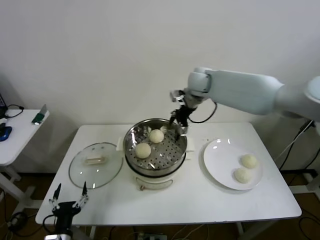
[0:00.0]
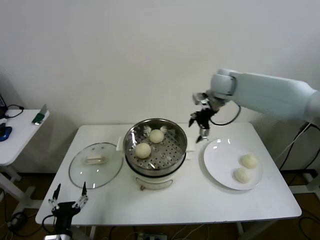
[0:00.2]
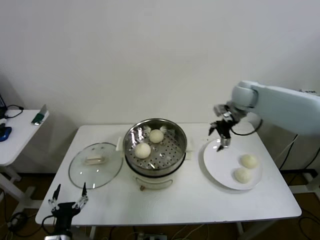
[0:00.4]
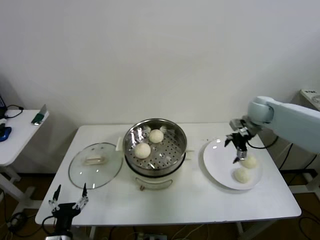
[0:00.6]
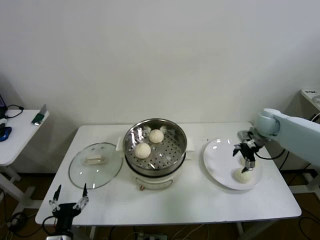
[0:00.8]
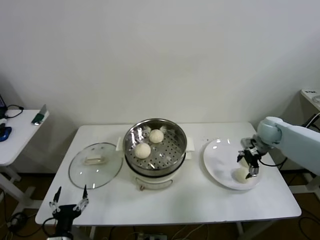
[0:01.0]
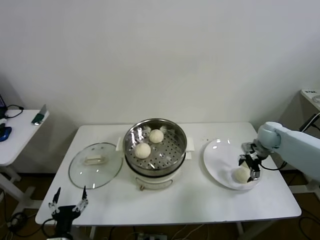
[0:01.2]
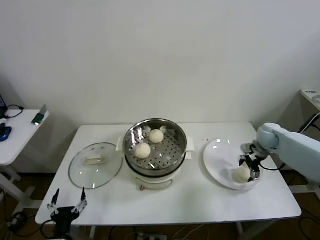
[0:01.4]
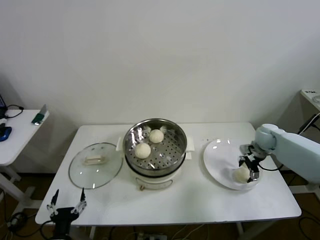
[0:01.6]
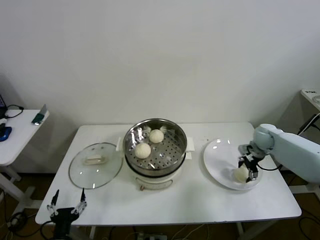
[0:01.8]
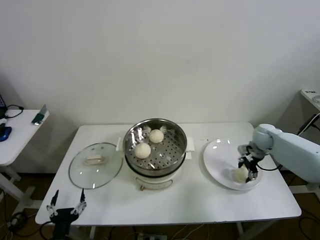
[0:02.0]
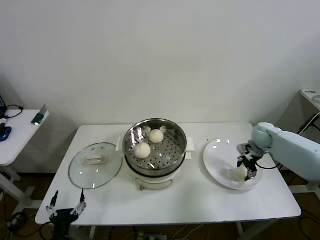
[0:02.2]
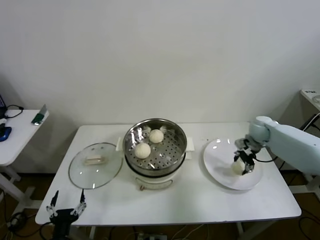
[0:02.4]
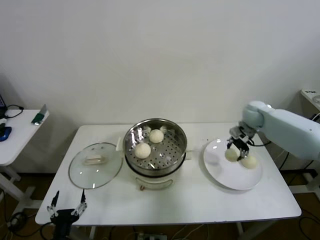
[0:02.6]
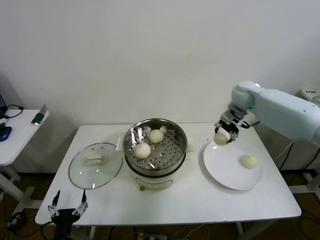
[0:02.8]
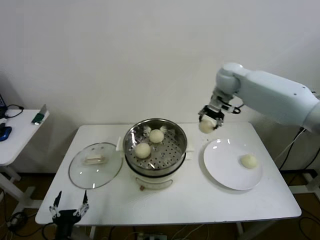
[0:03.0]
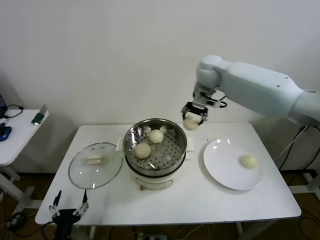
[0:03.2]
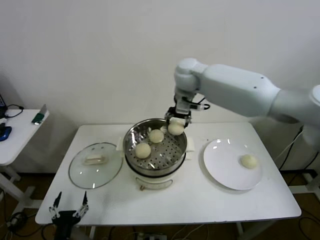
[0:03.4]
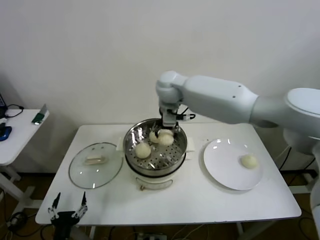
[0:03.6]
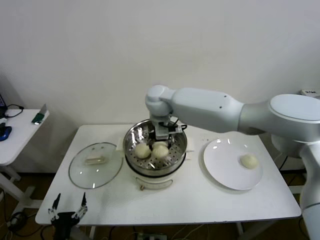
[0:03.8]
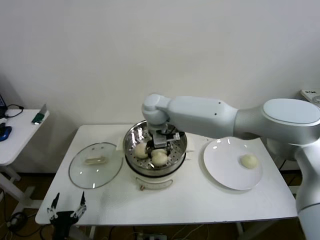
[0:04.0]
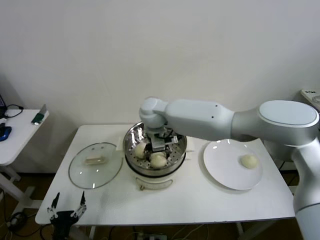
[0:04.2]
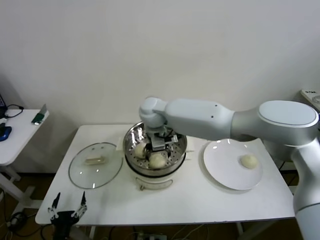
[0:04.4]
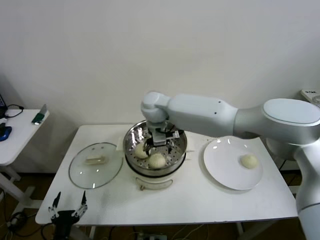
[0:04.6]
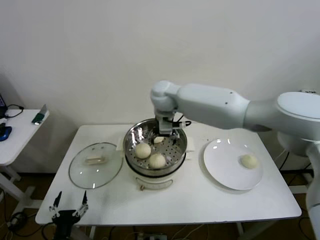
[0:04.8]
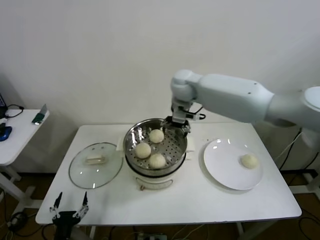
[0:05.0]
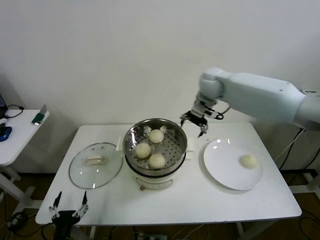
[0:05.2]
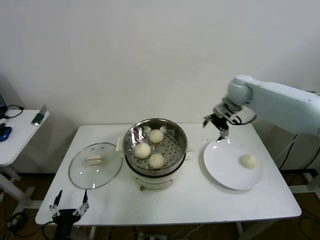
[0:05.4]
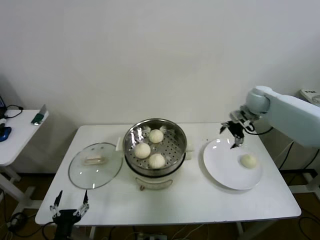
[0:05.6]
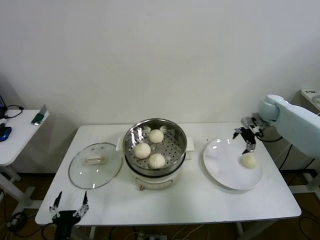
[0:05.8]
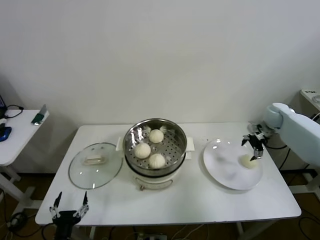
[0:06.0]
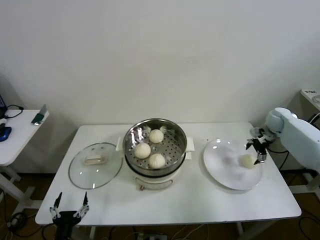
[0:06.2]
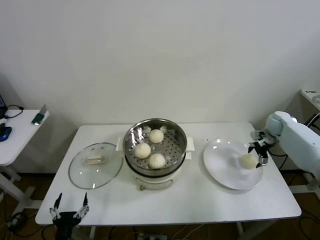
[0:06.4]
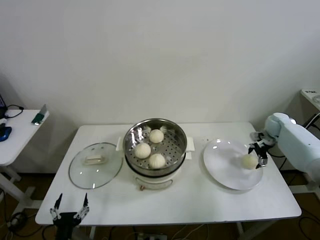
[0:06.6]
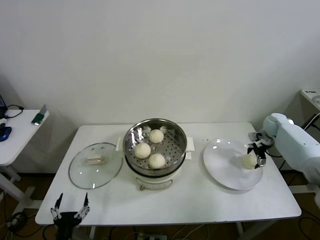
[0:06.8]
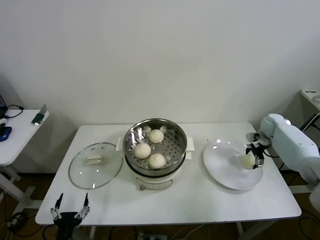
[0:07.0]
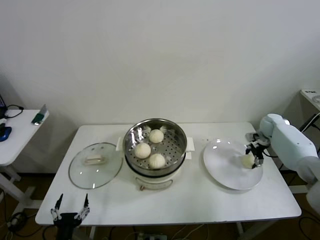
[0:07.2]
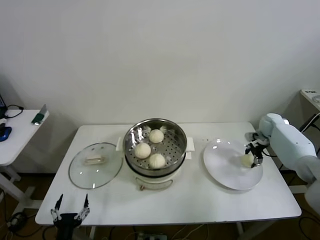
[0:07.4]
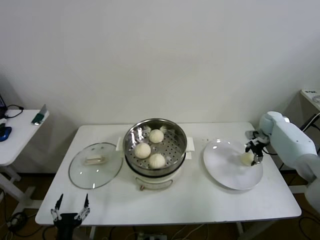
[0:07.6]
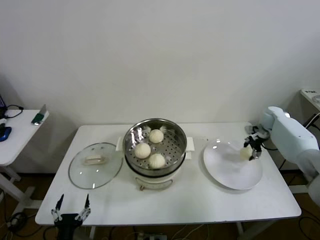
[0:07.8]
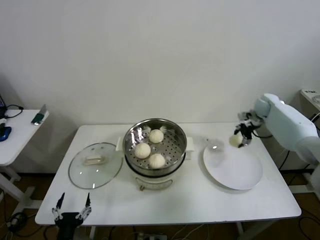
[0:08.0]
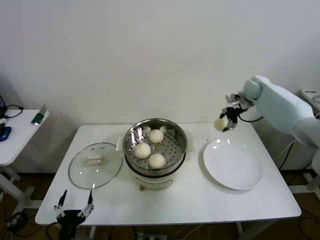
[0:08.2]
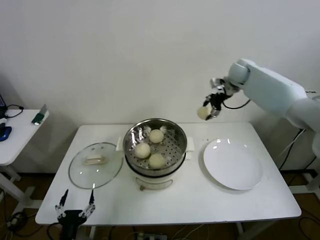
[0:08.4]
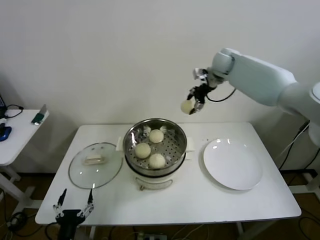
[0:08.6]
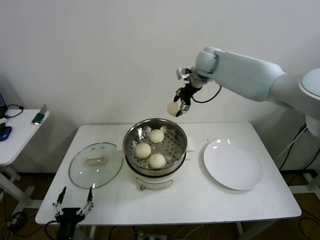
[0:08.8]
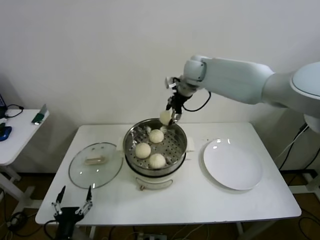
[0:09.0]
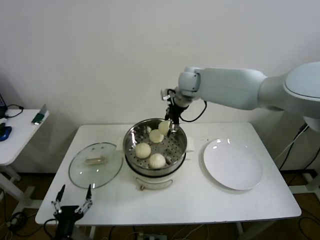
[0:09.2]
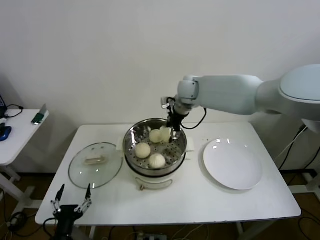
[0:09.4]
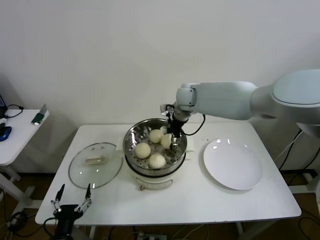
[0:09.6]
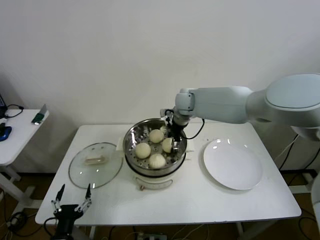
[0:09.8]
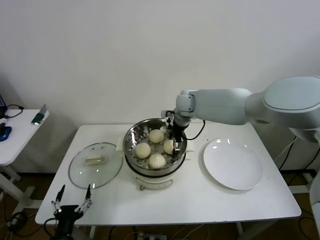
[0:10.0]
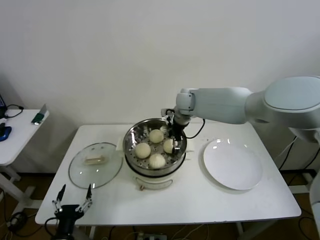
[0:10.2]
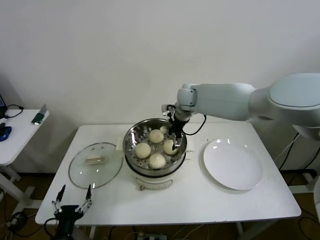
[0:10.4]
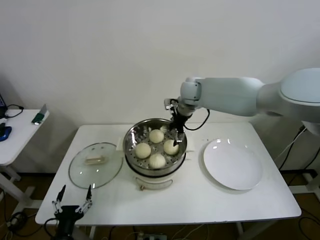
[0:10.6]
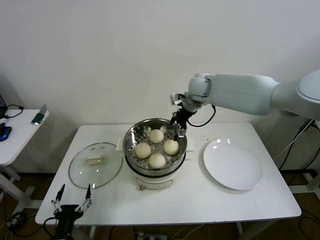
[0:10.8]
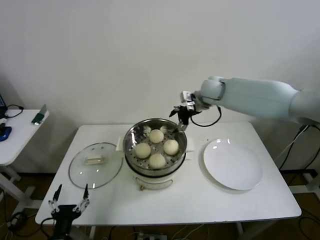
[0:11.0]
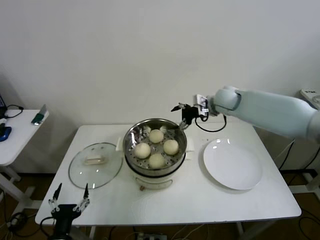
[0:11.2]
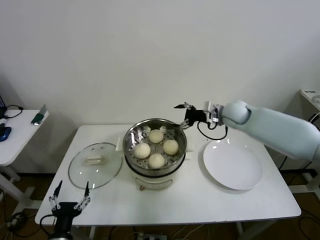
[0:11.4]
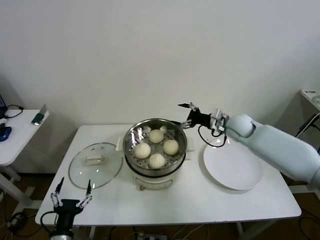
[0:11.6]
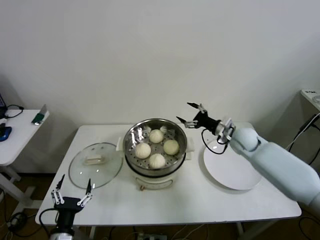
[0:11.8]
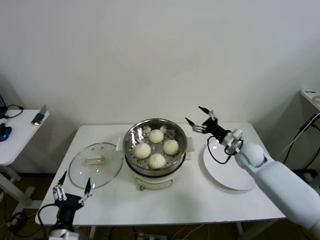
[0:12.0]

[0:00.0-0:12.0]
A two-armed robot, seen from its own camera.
Step, 0:00.0 to 0:02.2: Grasp the baozi in the plate with right gripper.
Step, 0:02.4 to 0:04.4: Place the baozi on the steamer with right gripper.
Step, 0:04.6 to 0:07.4: Grasp the baozi in the plate with right gripper.
Step, 0:07.6 to 0:10.4: Place the baozi on the steamer with right gripper.
0:00.0 to 0:01.6: The right gripper goes roughly 35 cm to the right and downward.
0:01.6 to 0:03.0: The right gripper goes about 30 cm upward and to the left, and closes its fingers.
0:03.0 to 0:04.4: The right gripper moves to the left, some 25 cm, and opens.
0:04.4 to 0:06.0: The right gripper travels to the right by some 50 cm.
0:06.0 to 0:07.6: The right gripper shifts approximately 5 cm downward, and closes.
0:07.6 to 0:09.0: The right gripper travels to the left and upward by some 40 cm.
0:09.0 to 0:10.4: The right gripper goes about 10 cm downward, and opens.
0:10.4 to 0:12.0: The right gripper goes some 30 cm to the right, downward and backward.

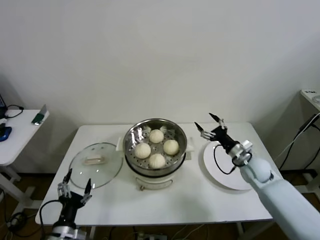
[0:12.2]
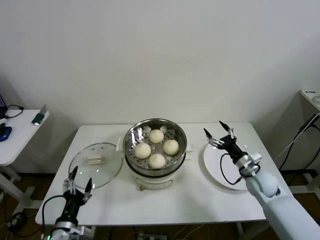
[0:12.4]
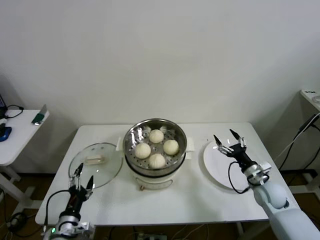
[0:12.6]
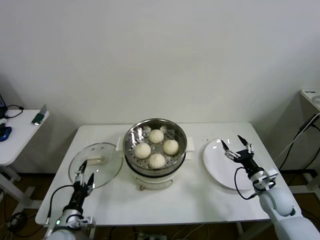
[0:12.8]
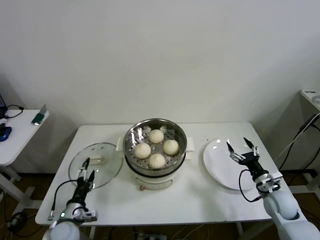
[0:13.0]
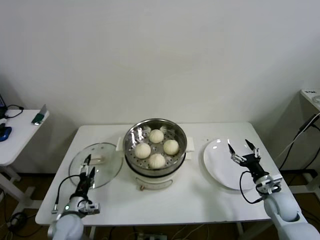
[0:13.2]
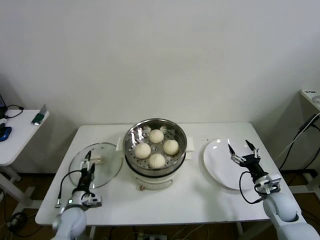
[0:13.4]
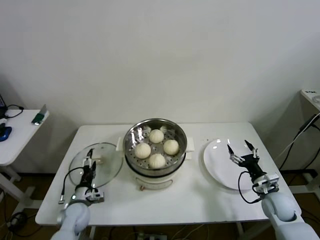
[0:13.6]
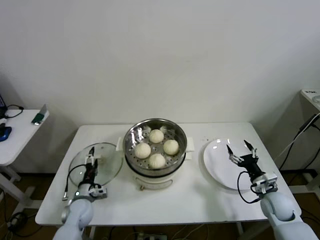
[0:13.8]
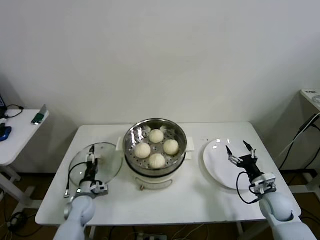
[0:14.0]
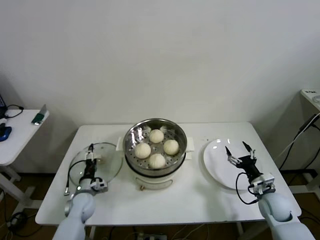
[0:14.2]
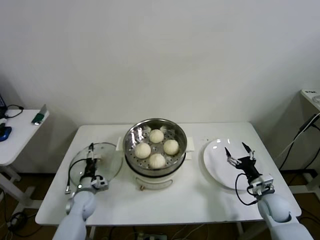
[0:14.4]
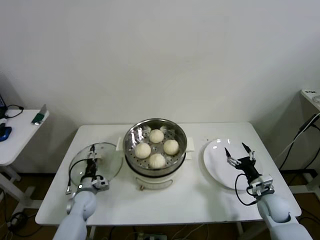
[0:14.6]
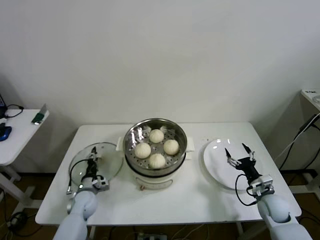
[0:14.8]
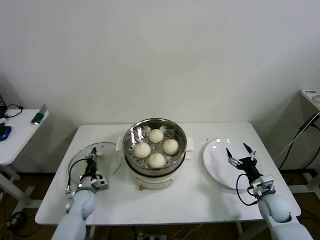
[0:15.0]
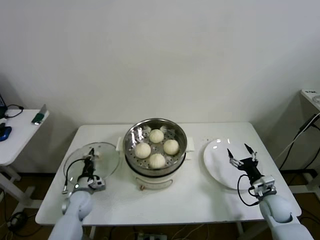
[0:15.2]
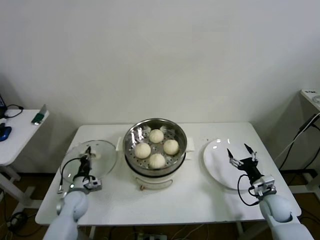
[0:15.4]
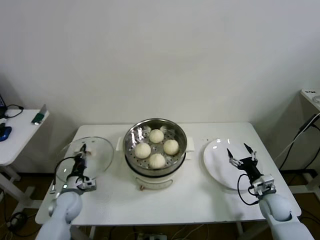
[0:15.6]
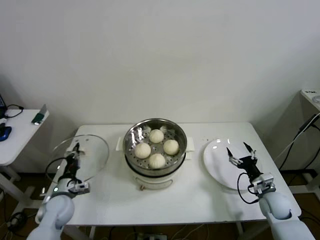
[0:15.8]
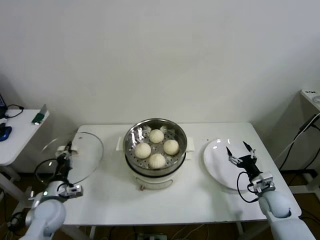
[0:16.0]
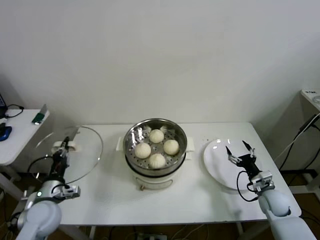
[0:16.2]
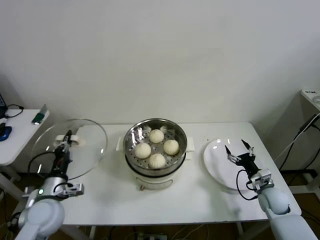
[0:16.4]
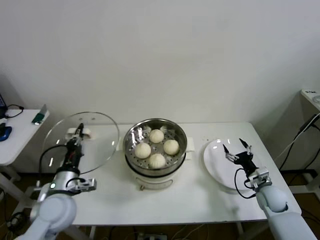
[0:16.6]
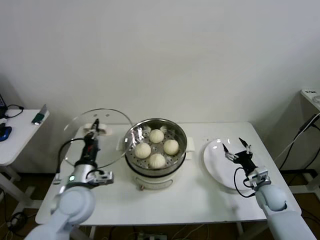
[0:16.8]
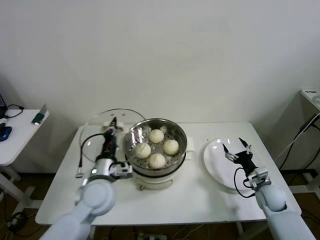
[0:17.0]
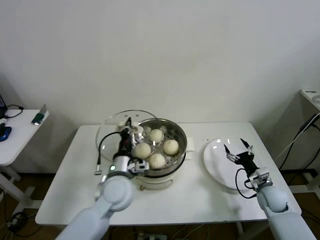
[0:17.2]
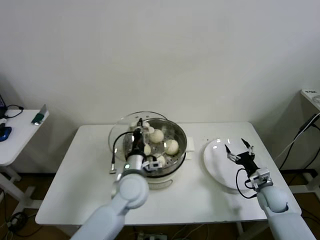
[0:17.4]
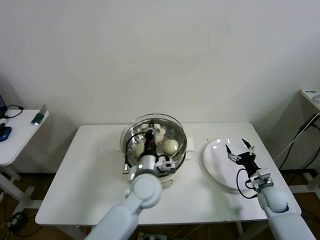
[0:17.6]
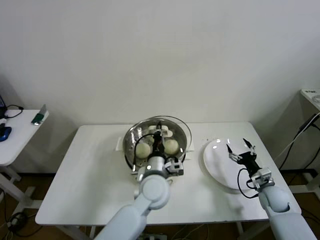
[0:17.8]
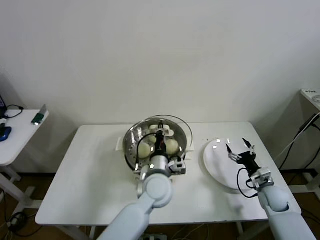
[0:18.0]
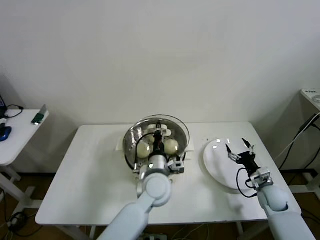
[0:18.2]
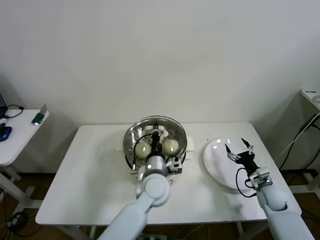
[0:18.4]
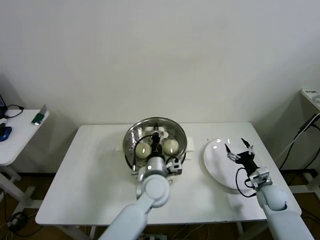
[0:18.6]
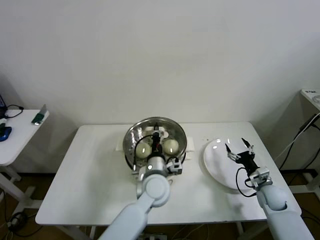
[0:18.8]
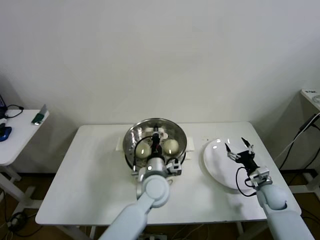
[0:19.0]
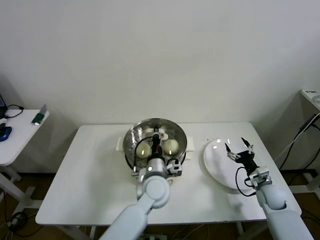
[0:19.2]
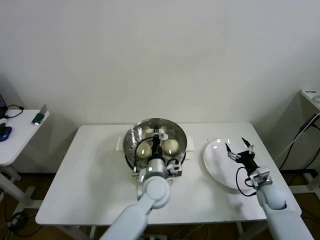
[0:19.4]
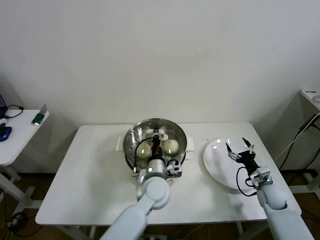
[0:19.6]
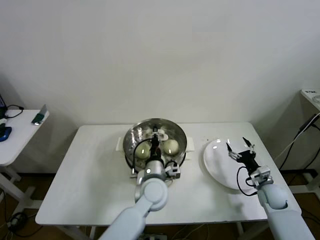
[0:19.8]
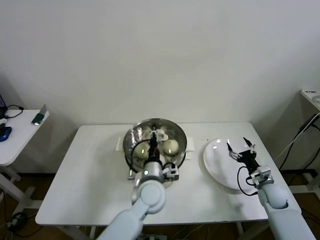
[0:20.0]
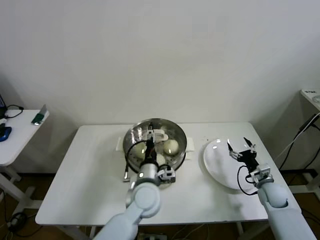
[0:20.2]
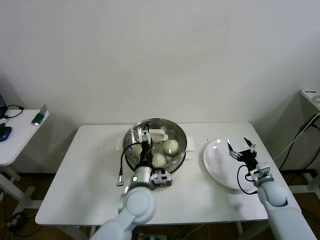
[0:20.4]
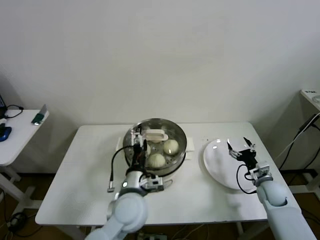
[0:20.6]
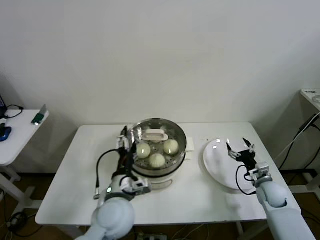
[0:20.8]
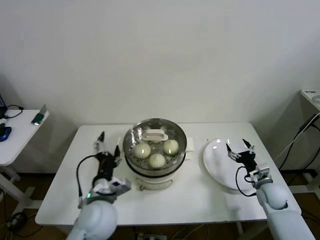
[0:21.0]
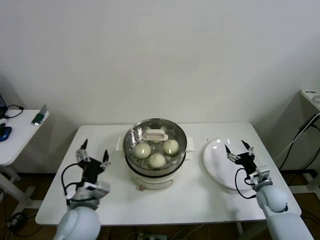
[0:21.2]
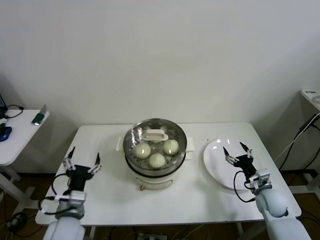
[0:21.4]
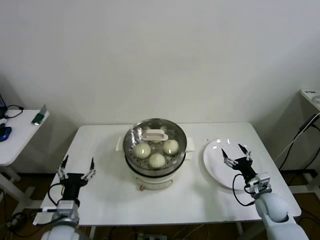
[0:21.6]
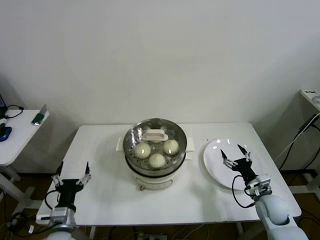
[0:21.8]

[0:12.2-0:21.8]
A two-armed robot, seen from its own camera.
Step, 0:12.2 to 0:15.0: Grasp the pot lid with left gripper.
Step, 0:15.2 to 0:20.4: Place the pot lid on the steamer with left gripper.
0:12.2 to 0:13.8: The left gripper moves forward and downward, roughly 20 cm. Meanwhile the right gripper moves backward, downward and to the right, approximately 15 cm.
0:13.8 to 0:15.4: The left gripper closes.
0:15.4 to 0:17.0: The left gripper shifts roughly 25 cm upward and to the right.
0:17.0 to 0:18.6: The left gripper travels to the right by roughly 15 cm.
0:18.6 to 0:20.2: The left gripper opens up.
0:20.2 to 0:21.8: The right gripper changes place by roughly 5 cm. Meanwhile the left gripper heads to the left and backward, covering some 30 cm.
